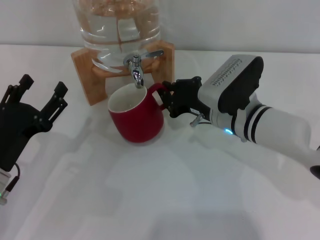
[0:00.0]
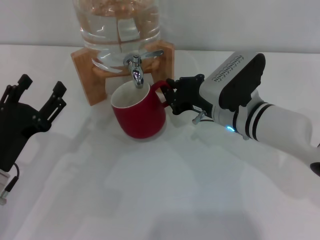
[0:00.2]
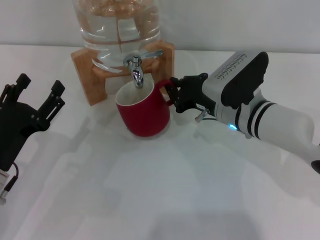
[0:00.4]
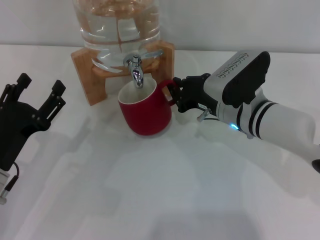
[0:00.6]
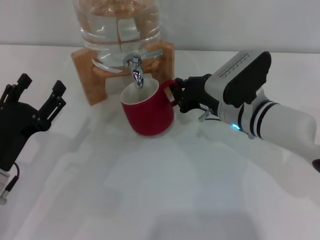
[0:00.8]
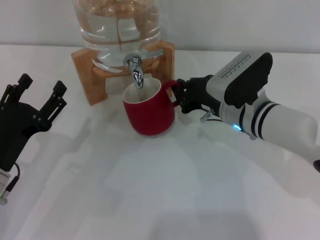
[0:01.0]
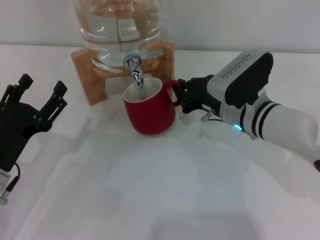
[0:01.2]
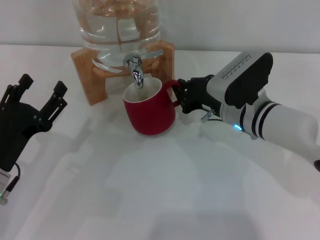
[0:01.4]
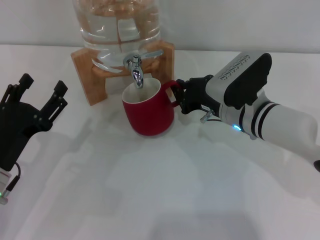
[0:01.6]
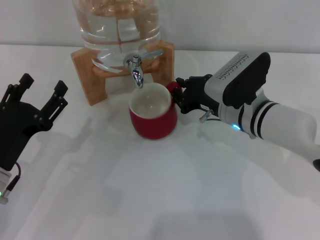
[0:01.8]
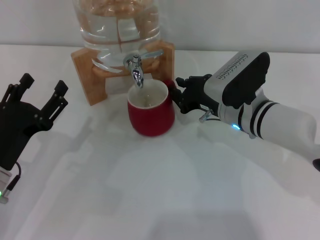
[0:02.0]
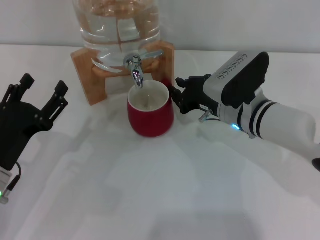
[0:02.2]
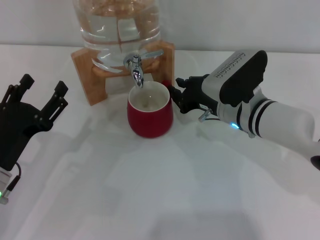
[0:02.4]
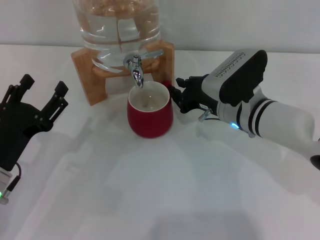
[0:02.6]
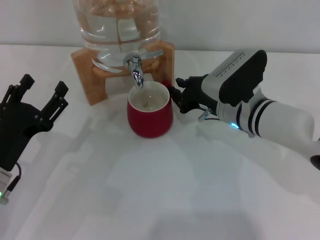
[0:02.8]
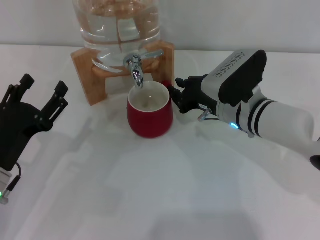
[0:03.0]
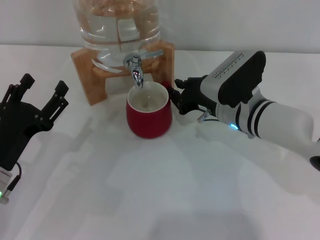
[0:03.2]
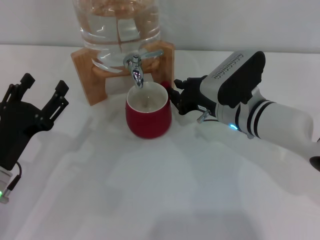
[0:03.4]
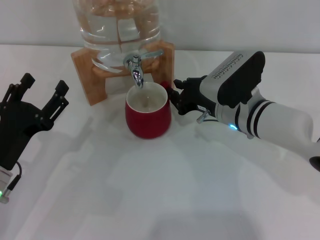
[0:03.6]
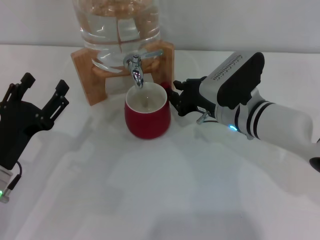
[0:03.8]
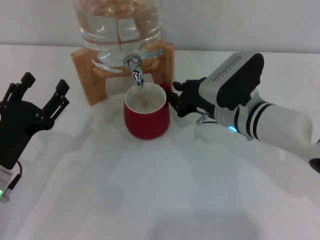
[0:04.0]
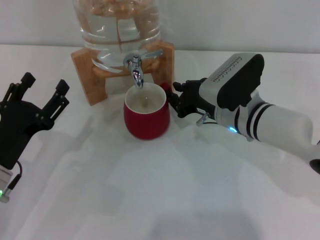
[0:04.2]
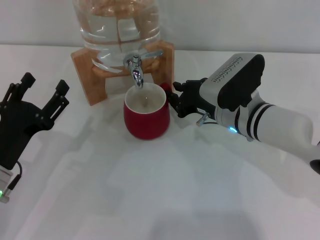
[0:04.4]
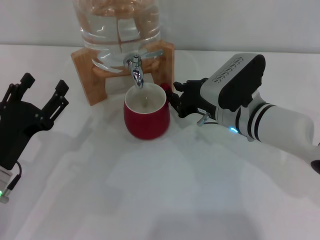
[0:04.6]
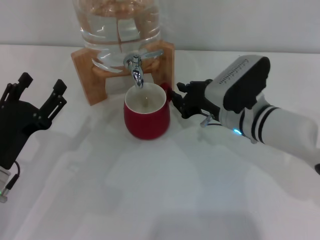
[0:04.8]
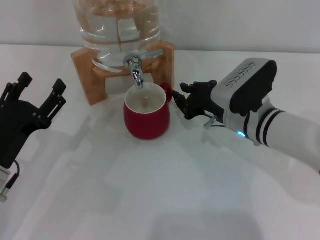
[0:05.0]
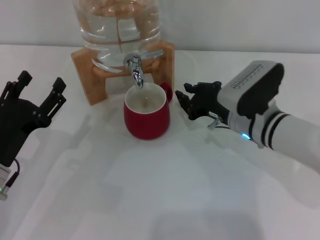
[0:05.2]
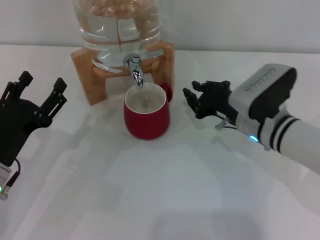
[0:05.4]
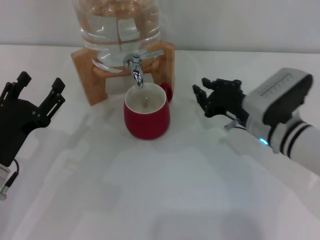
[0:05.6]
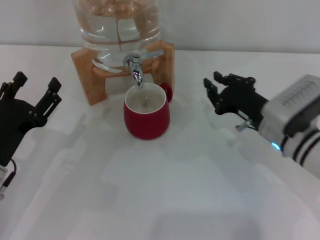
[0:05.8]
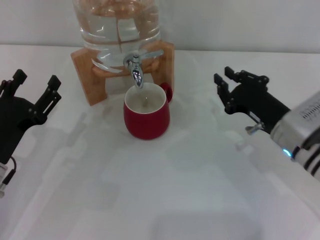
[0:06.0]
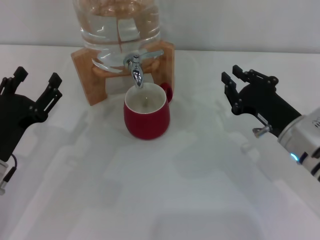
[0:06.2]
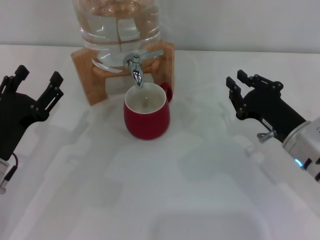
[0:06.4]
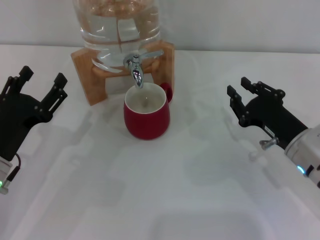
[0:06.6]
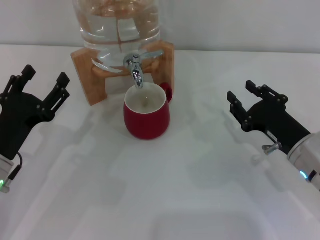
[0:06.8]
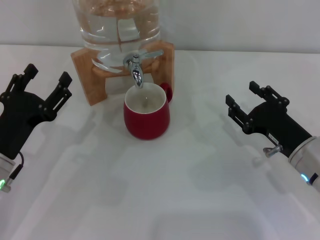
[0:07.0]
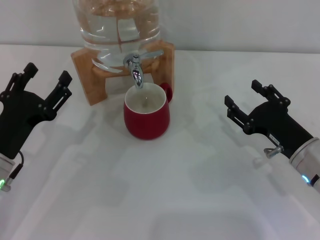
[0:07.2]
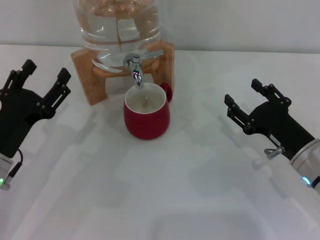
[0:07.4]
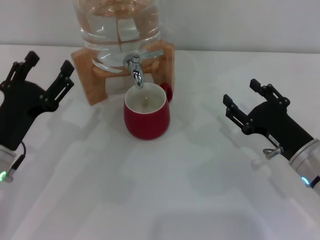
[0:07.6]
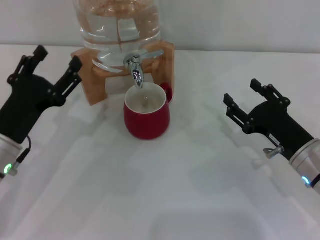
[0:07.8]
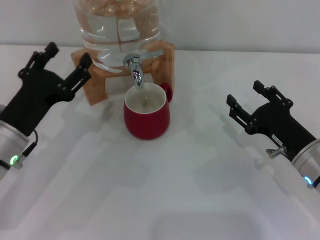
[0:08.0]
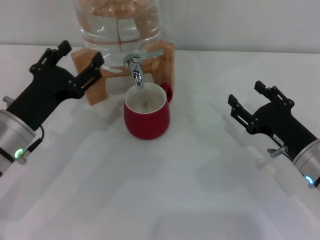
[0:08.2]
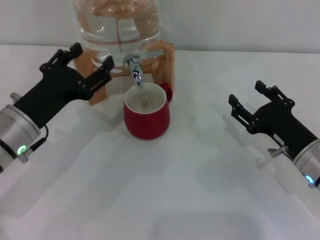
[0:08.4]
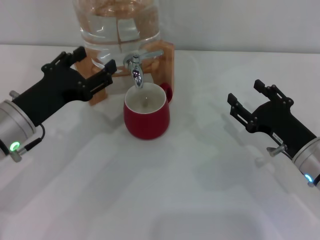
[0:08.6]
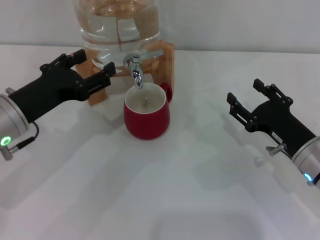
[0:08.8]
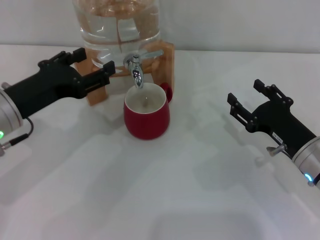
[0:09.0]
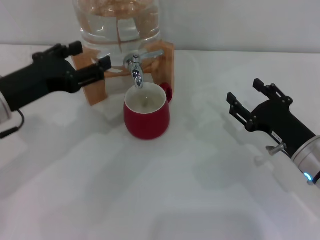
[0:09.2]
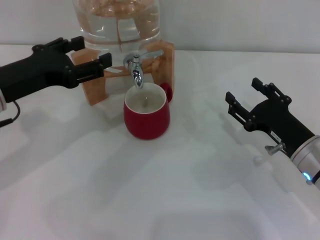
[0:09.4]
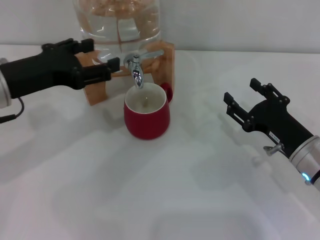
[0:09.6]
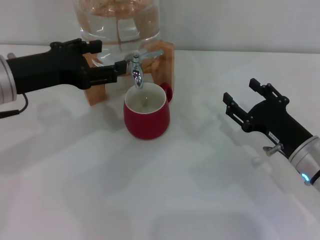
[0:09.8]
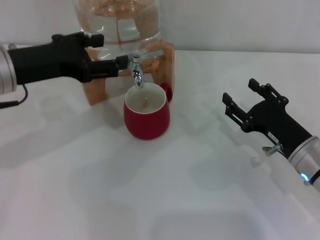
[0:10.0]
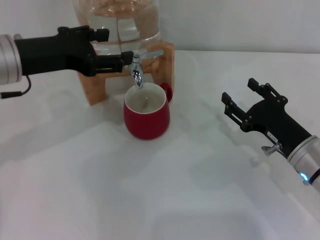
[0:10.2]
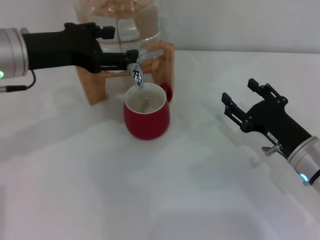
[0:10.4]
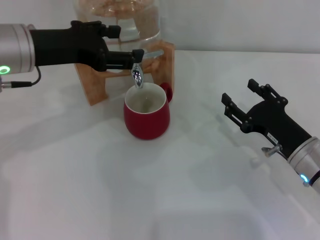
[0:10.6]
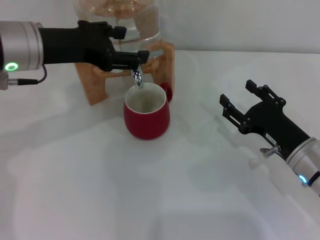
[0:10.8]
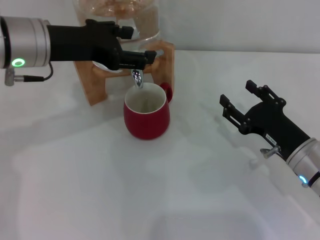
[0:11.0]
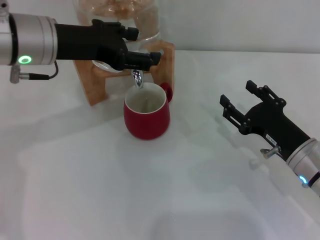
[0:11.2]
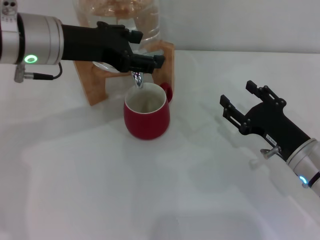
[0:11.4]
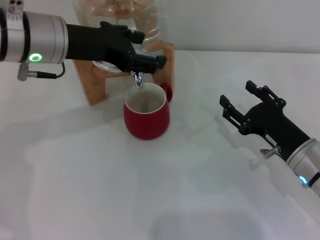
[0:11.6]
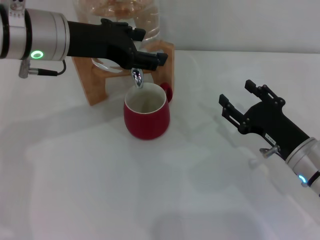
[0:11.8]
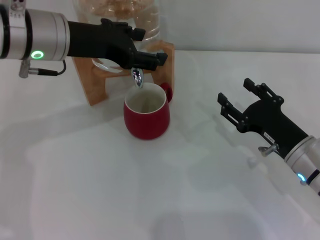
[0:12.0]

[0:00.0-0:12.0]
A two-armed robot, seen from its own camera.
Task of the whole recording: the right gripper pick up the red cup and place it horizontally under the faucet, the left gripper turn on the faucet to fill the cup, and then turn off the faucet.
Step, 0:00.0 to 0:05.2: Move the cup beneath the water dispenser nozzle with the right gripper.
0:00.0 to 0:01.6: The grippers make only small movements.
0:01.6 to 0:04.4: The two grippers keep their place.
0:04.4 to 0:06.0: The right gripper heads to the right, covering some 10 cm.
0:06.0 to 0:07.6: The right gripper shifts by some 5 cm, and opens its fingers.
0:07.6 to 0:09.0: The left gripper travels upward by roughly 10 cm.
0:09.0 to 0:10.4: The left gripper goes some 10 cm upward and forward.
0:10.4 to 0:12.0: The left gripper shifts by approximately 5 cm.

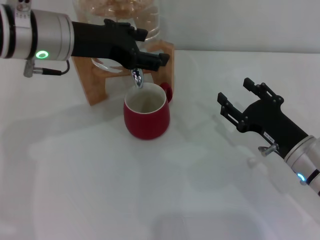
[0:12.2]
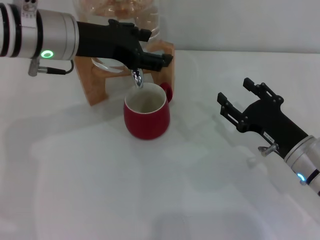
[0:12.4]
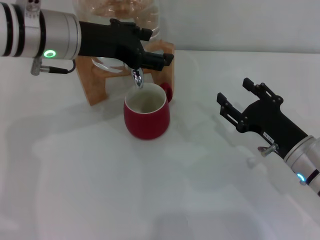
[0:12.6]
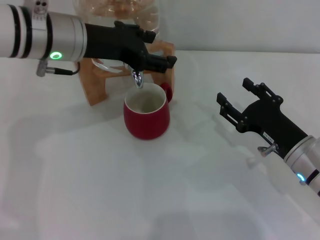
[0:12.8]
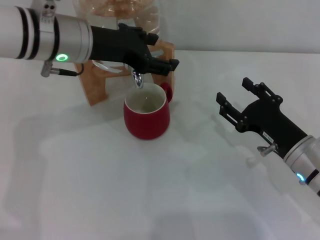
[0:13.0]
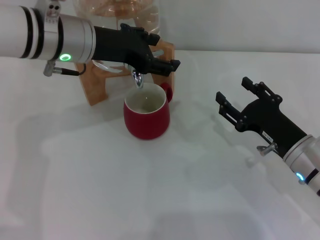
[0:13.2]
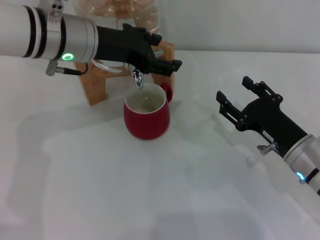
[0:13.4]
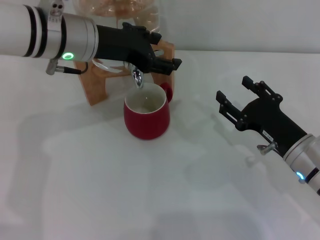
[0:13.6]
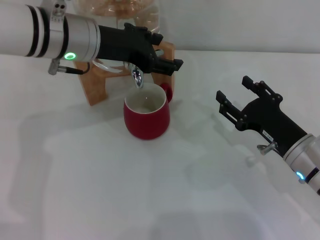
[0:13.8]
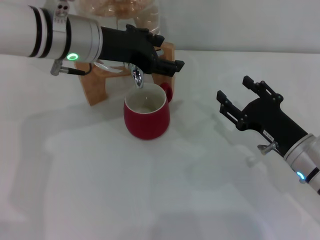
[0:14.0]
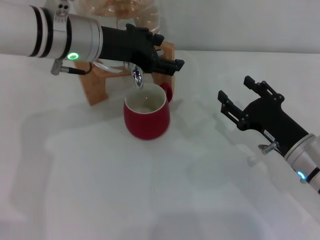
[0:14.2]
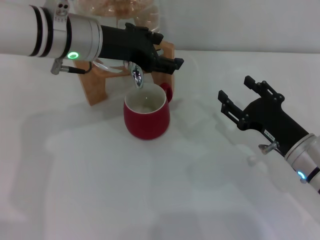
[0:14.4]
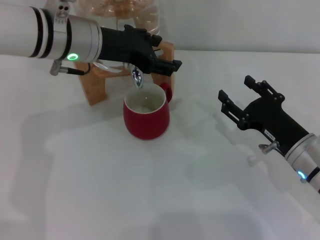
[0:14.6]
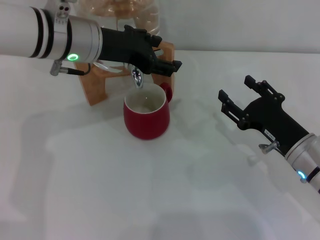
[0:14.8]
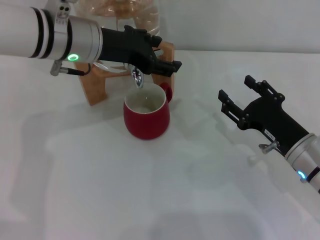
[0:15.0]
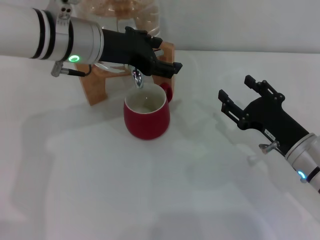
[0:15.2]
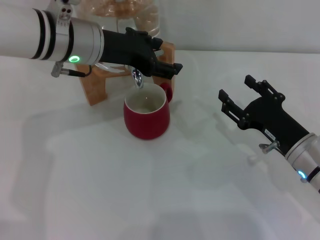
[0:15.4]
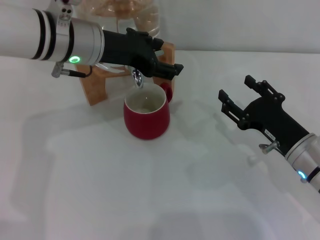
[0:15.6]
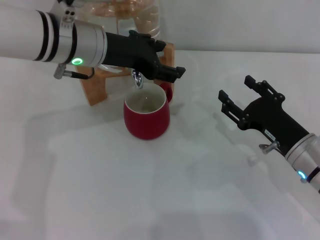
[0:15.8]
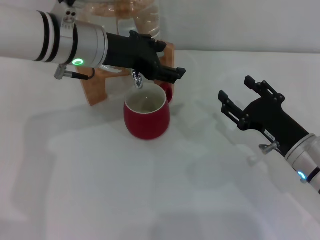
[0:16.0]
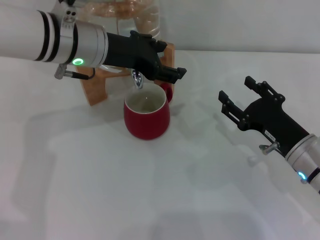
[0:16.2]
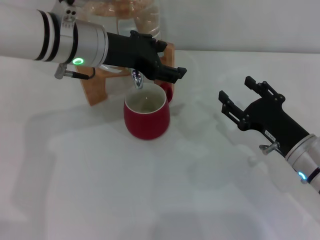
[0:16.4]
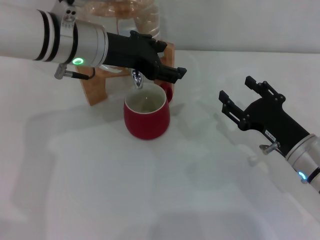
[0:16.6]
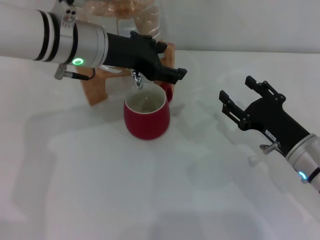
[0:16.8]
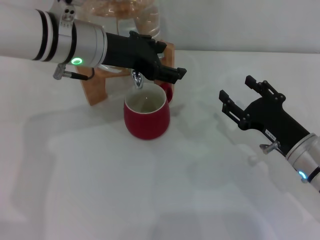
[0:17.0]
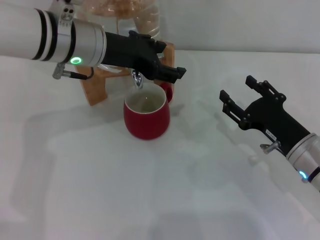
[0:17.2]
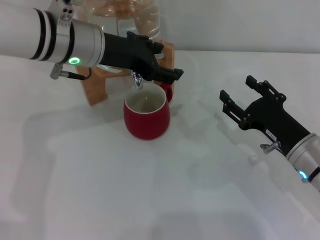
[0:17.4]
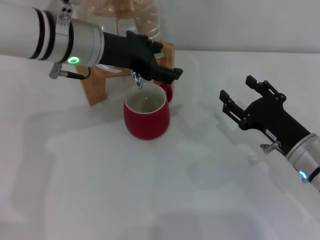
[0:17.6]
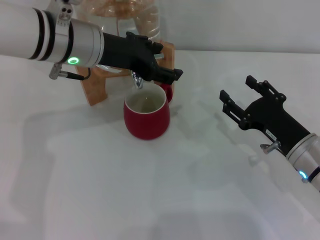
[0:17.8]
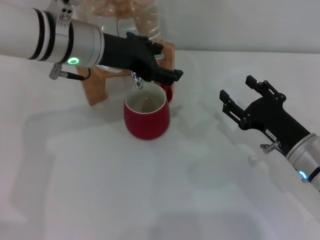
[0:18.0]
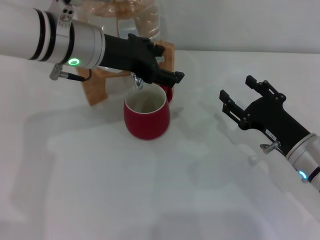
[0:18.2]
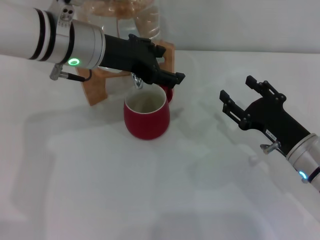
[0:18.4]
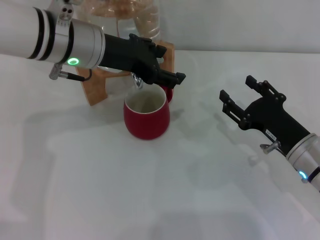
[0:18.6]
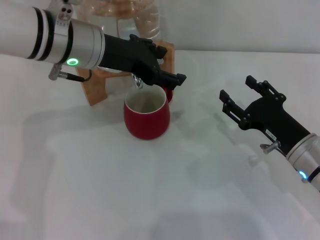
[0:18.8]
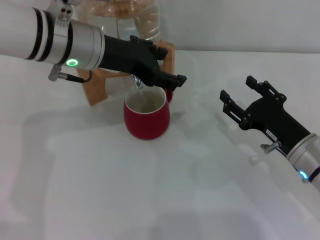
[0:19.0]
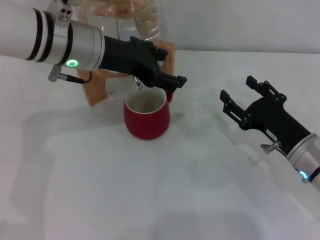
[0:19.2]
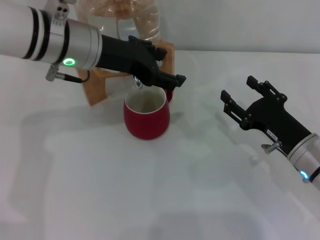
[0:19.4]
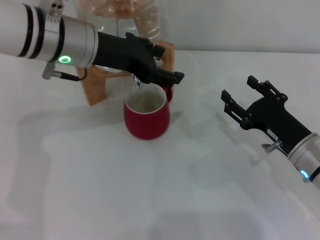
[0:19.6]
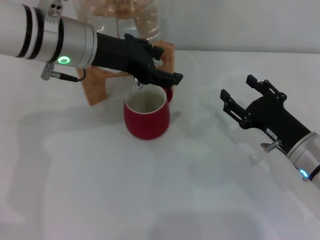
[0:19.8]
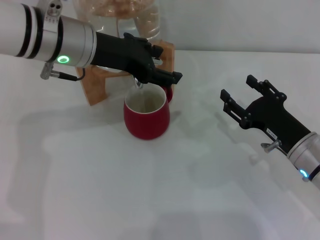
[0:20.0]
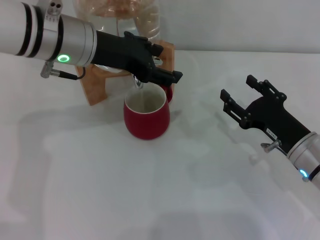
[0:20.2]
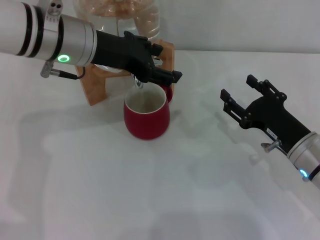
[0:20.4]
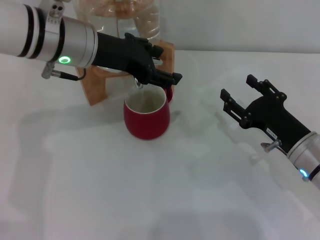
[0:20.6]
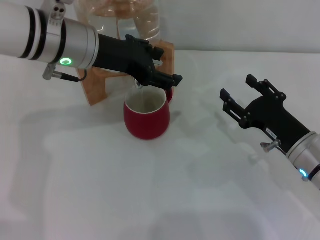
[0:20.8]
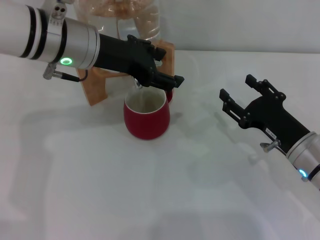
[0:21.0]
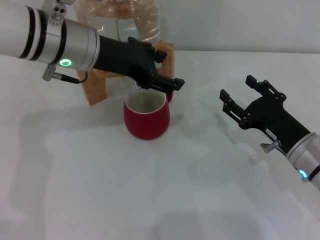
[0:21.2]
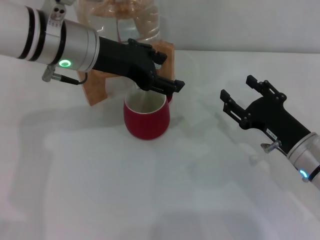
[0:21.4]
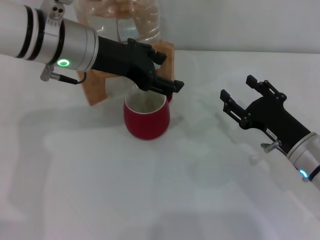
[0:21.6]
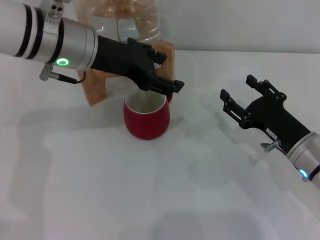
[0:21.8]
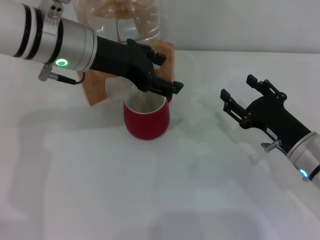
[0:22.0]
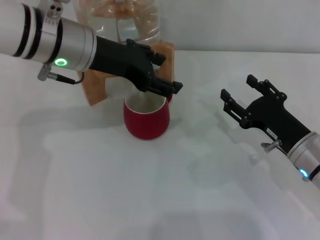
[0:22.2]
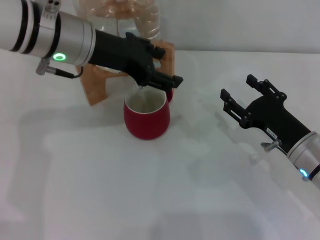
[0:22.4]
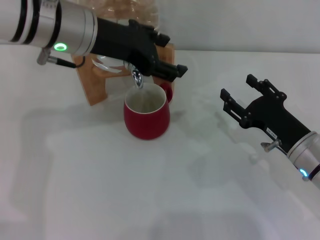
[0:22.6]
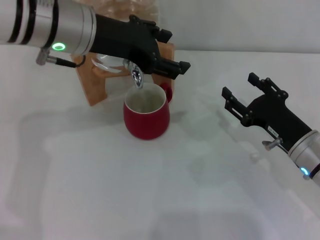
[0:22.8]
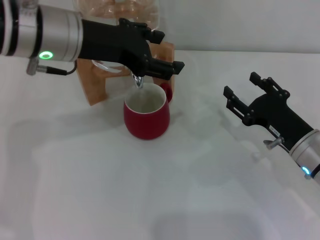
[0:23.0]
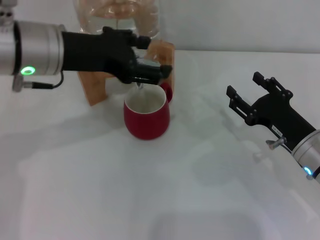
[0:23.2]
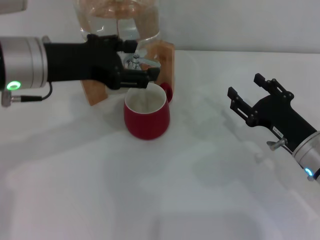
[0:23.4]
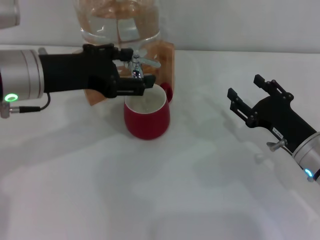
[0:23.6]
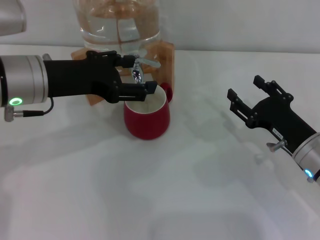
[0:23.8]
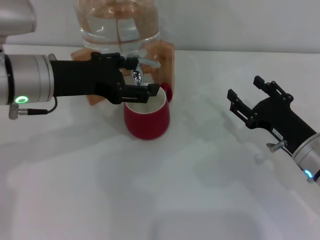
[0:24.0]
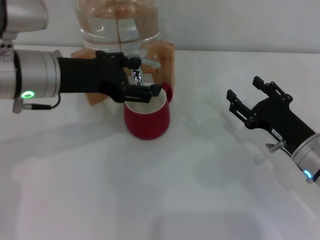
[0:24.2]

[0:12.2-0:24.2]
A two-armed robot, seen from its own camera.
Task of the whole recording: the right gripper pick up the red cup and place it horizontally under the faucet, the left gripper turn on the faucet to fill the cup, and then turn off the faucet.
Step, 0:12.2 to 0:23.4: Open the dispenser valve and fill the cup with water with the left gripper.
0:12.2 to 0:13.8: The grippers make only small movements.
0:13.8 to 0:18.2: Both grippers stay put.
0:18.2 to 0:19.8: Neither gripper changes place.
0:19.8 to 0:21.2: Both grippers stay put.
0:21.2 to 0:22.6: There are only small adjustments of the grippers.
0:22.6 to 0:24.2: The left gripper ends up about 10 cm from where it was.
